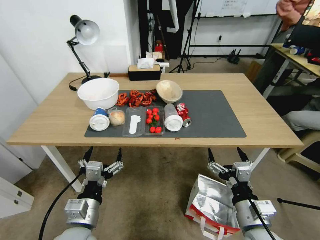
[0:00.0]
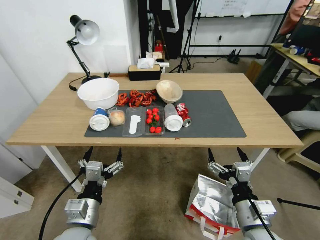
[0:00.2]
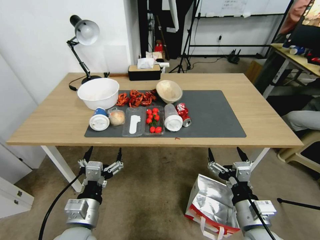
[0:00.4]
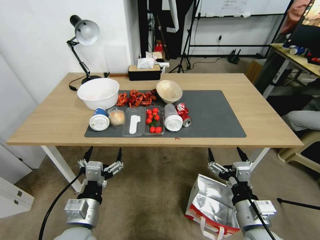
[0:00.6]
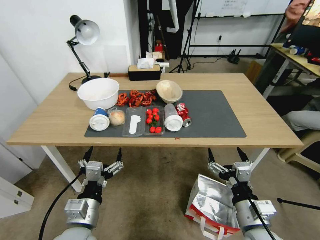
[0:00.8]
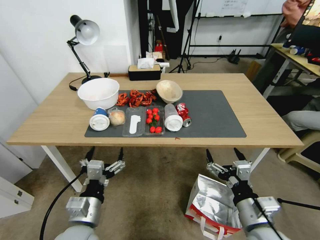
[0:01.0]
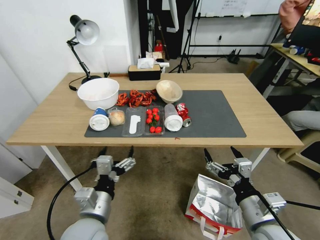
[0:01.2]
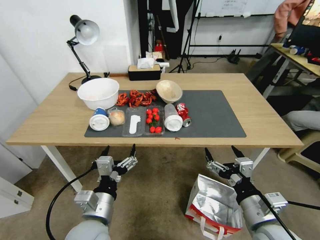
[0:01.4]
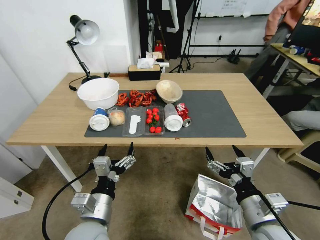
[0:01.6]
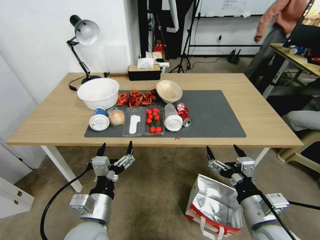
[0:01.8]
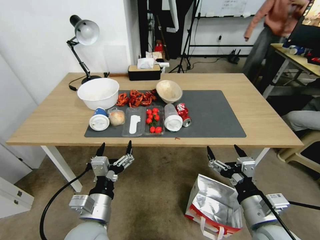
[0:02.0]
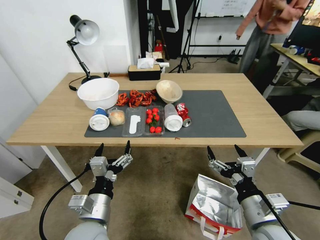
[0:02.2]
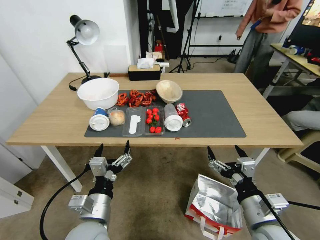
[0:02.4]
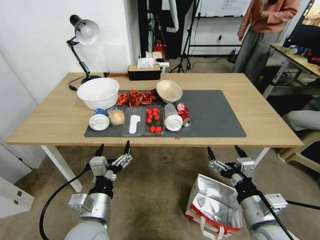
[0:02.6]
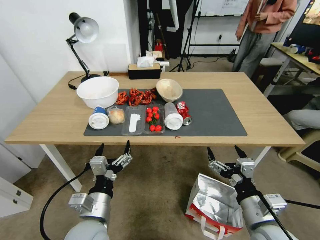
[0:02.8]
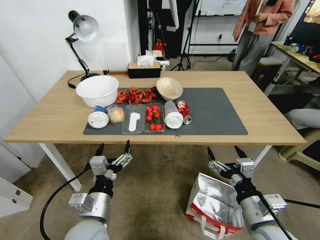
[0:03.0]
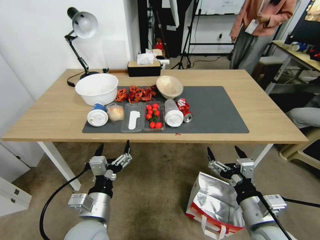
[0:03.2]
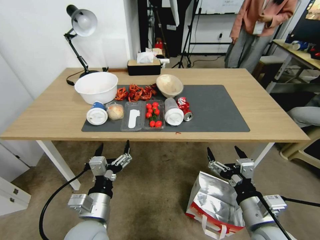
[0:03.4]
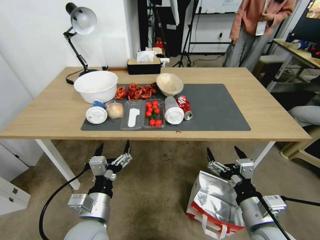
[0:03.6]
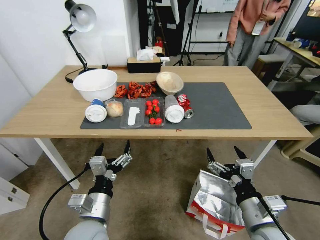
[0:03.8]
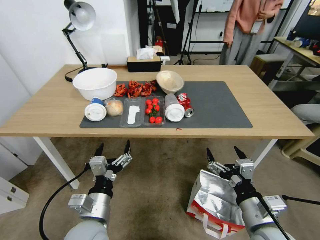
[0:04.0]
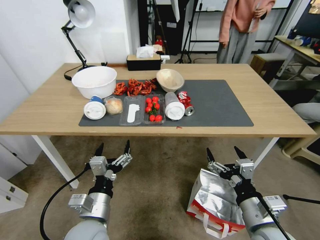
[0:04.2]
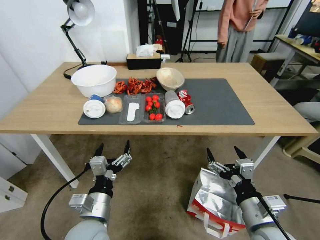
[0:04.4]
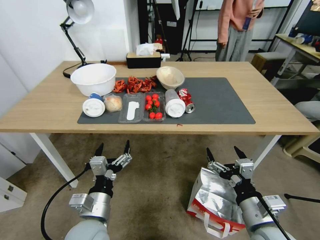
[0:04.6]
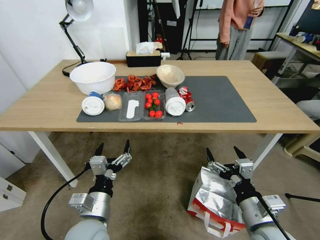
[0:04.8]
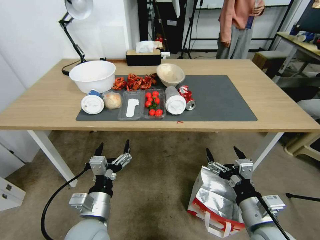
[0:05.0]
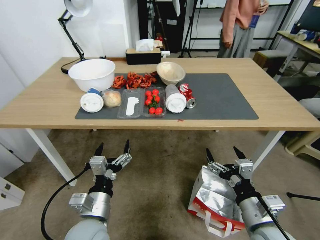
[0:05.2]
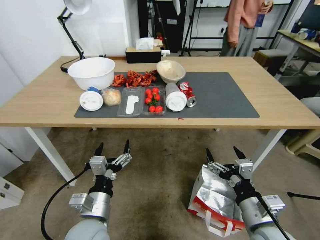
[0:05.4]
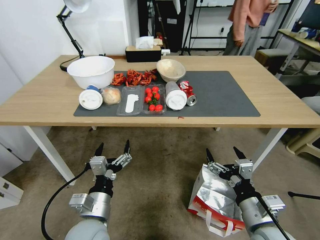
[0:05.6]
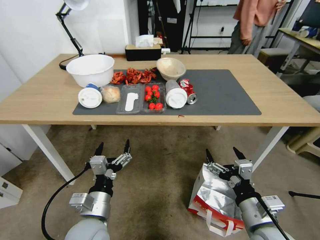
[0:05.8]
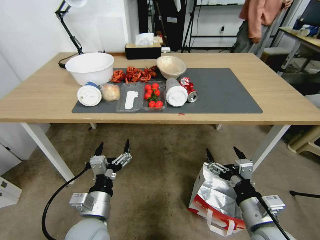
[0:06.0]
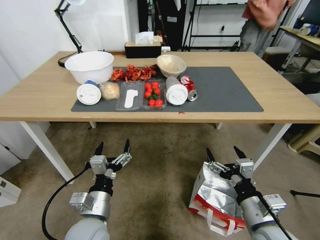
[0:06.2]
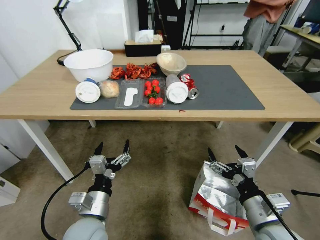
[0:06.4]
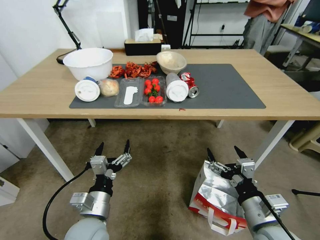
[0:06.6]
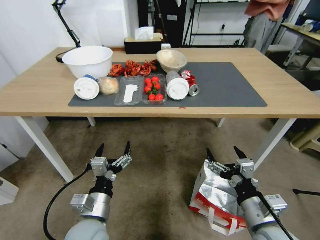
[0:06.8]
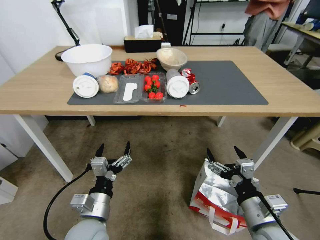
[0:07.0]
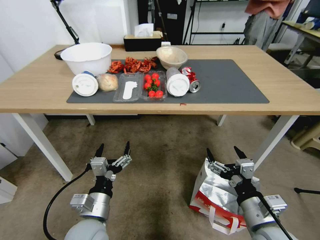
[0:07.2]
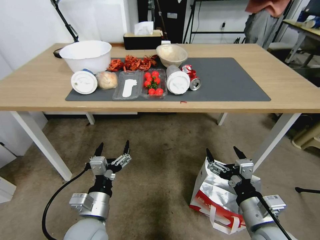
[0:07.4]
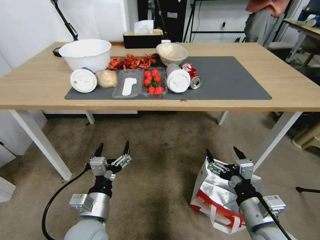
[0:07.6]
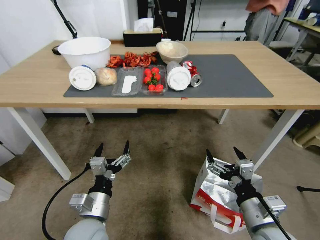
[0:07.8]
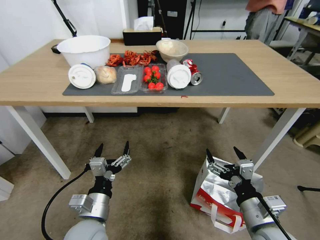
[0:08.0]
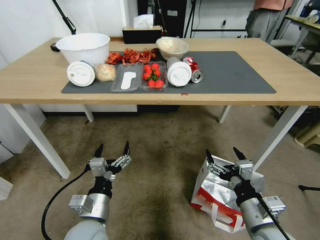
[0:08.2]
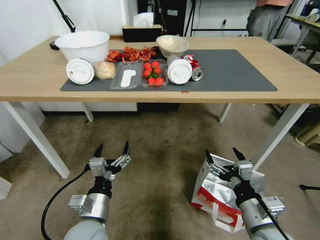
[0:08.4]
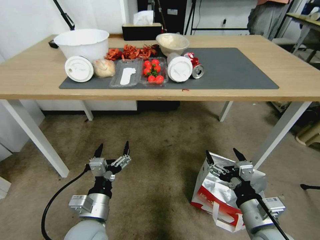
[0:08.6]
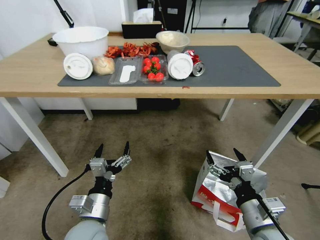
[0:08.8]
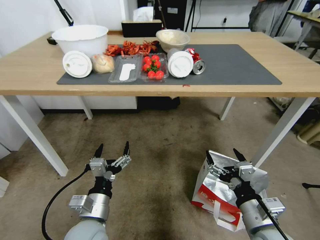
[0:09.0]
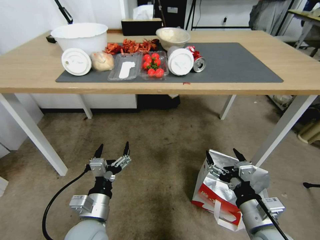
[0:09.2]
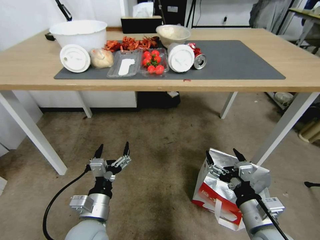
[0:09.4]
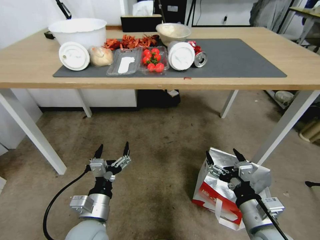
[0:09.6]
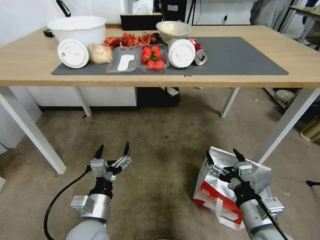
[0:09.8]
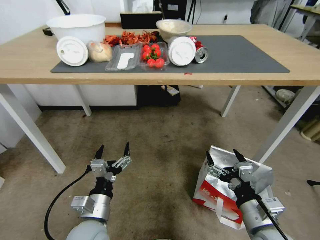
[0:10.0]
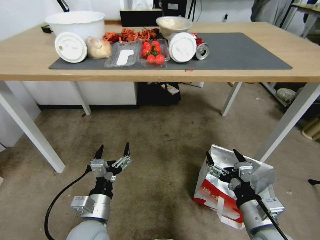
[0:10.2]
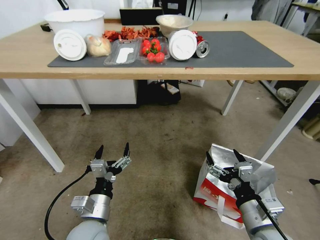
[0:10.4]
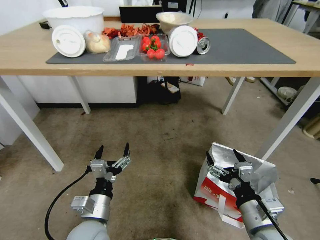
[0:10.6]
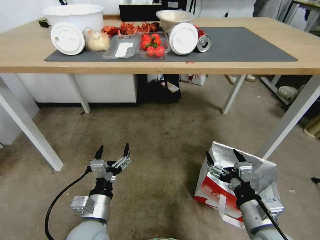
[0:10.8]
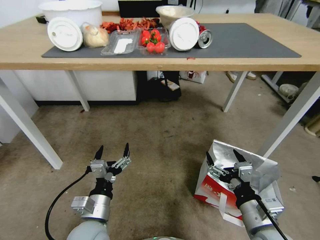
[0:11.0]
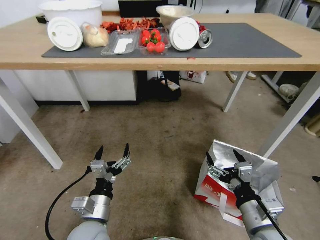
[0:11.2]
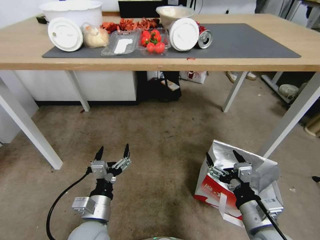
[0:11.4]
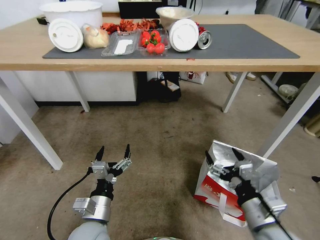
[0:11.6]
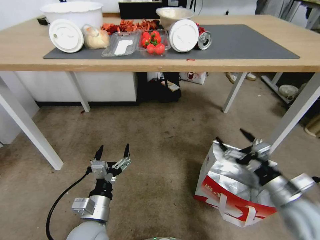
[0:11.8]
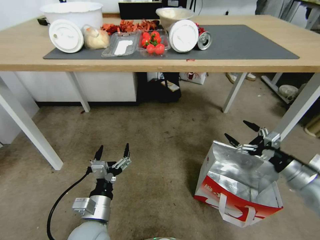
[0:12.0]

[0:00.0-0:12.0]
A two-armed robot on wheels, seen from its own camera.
Task of the whole recording: Pick up the food delivery bag from the floor and place it on the table.
0:10.4 to 0:12.0: The right gripper moves to the right and forward, some 25 cm.

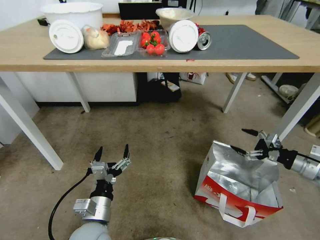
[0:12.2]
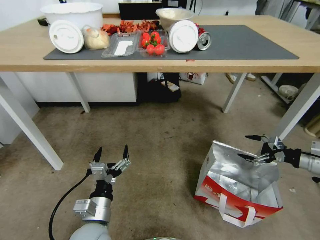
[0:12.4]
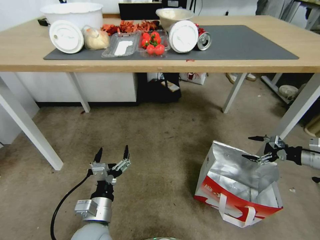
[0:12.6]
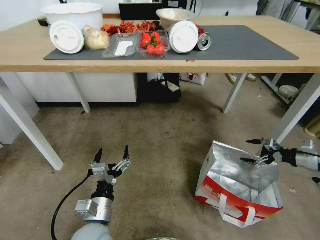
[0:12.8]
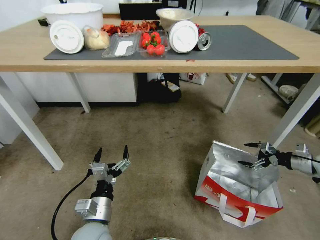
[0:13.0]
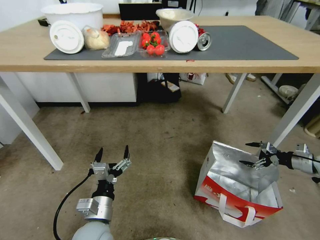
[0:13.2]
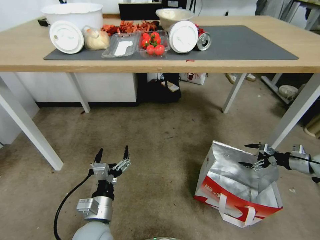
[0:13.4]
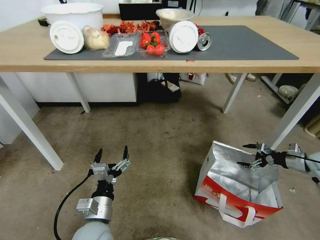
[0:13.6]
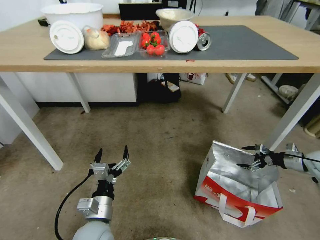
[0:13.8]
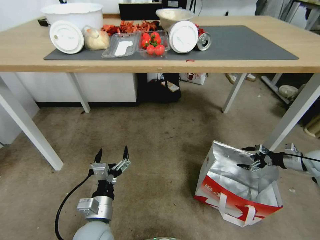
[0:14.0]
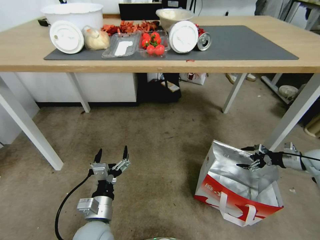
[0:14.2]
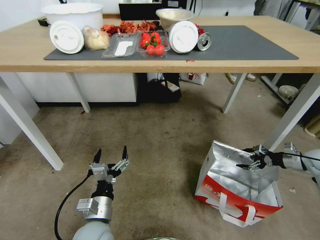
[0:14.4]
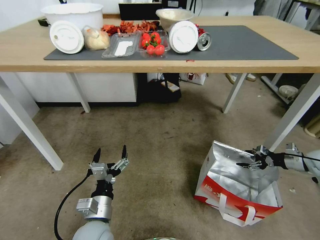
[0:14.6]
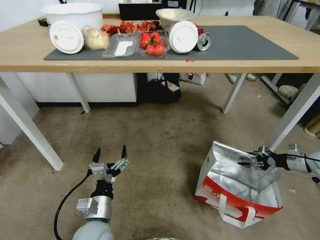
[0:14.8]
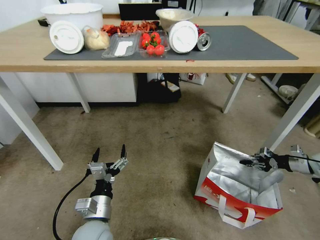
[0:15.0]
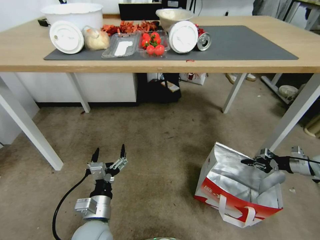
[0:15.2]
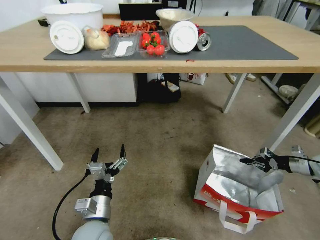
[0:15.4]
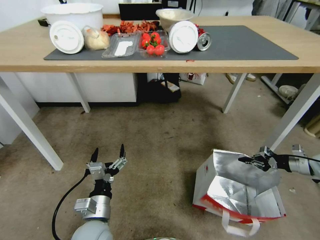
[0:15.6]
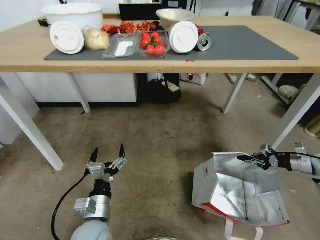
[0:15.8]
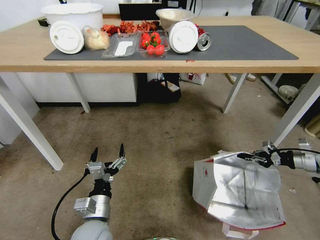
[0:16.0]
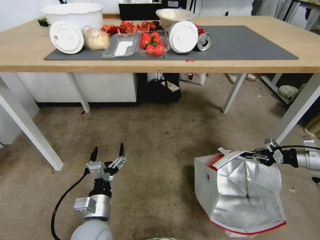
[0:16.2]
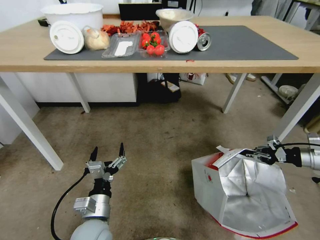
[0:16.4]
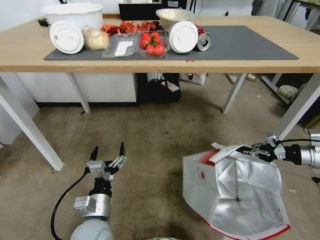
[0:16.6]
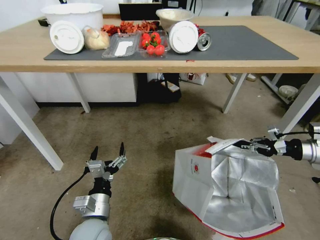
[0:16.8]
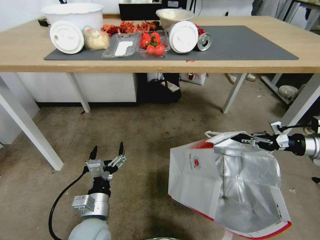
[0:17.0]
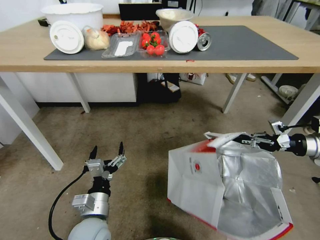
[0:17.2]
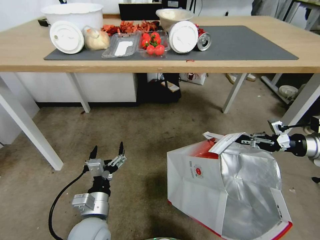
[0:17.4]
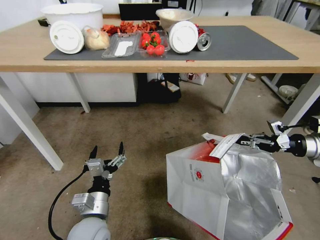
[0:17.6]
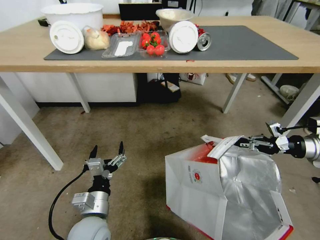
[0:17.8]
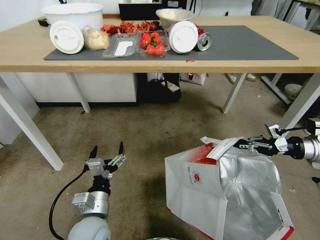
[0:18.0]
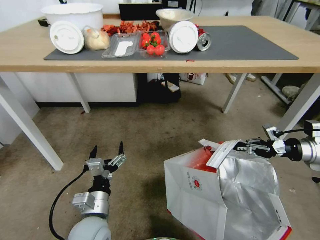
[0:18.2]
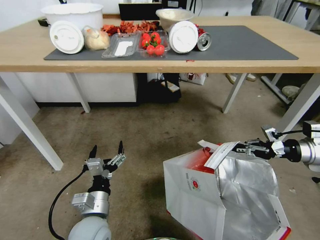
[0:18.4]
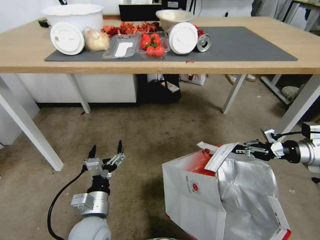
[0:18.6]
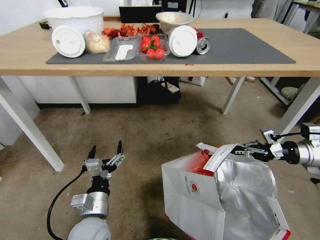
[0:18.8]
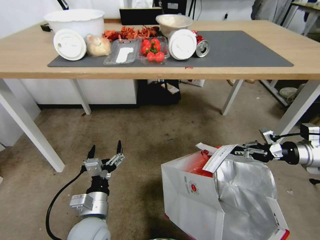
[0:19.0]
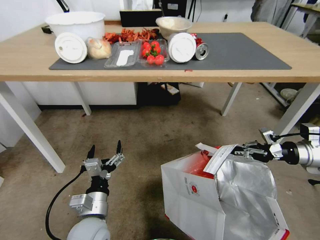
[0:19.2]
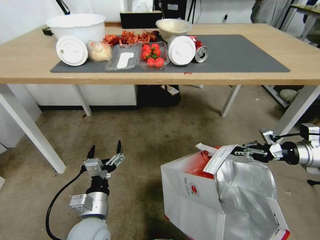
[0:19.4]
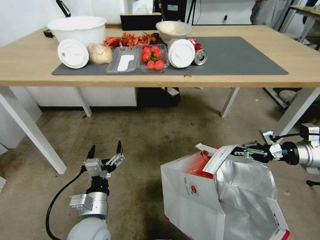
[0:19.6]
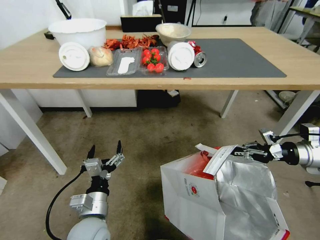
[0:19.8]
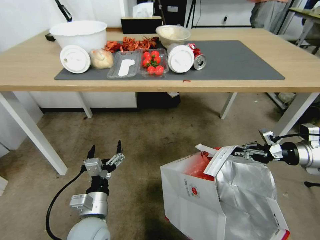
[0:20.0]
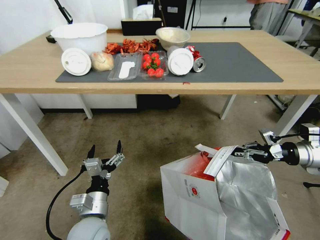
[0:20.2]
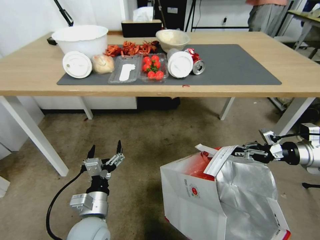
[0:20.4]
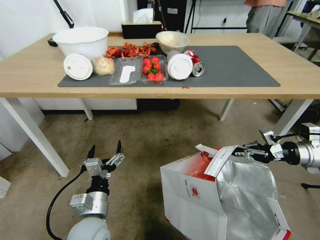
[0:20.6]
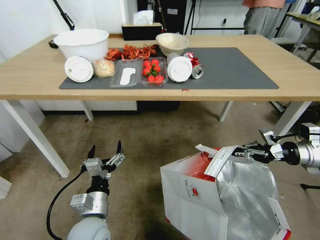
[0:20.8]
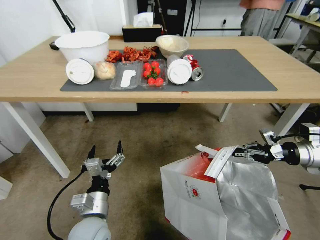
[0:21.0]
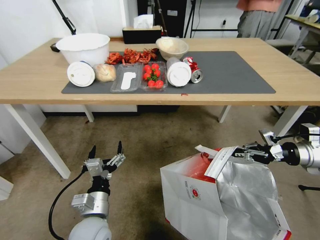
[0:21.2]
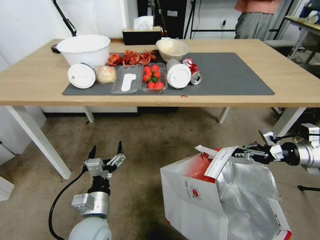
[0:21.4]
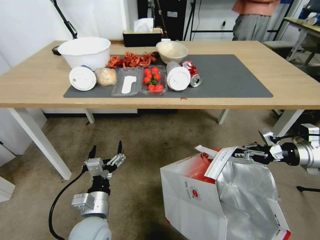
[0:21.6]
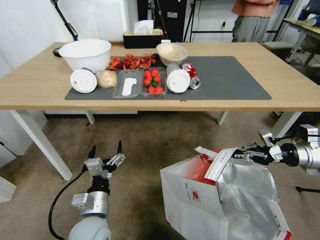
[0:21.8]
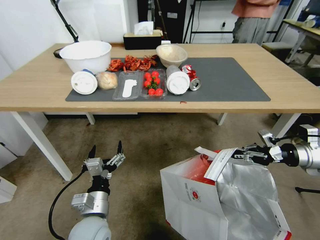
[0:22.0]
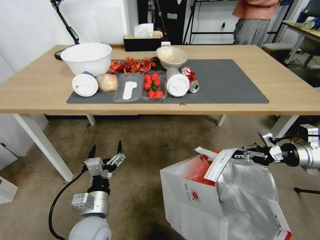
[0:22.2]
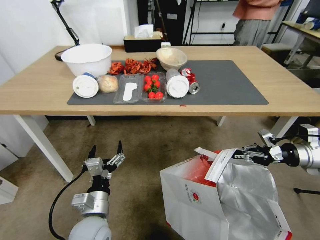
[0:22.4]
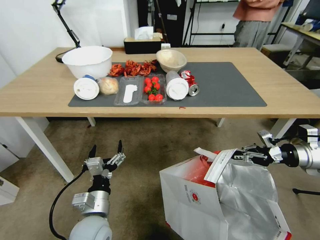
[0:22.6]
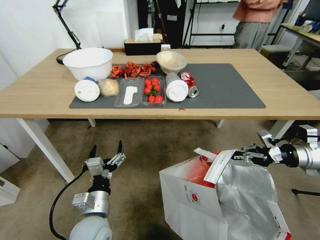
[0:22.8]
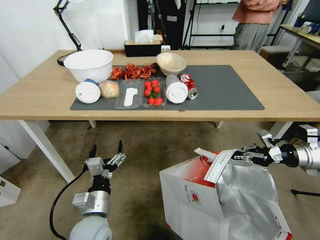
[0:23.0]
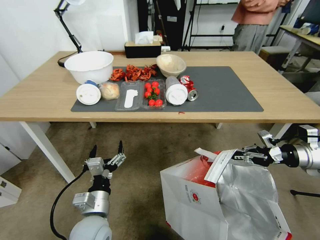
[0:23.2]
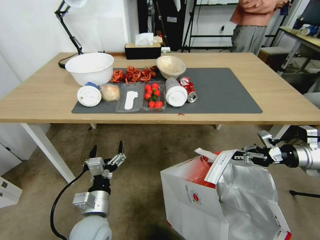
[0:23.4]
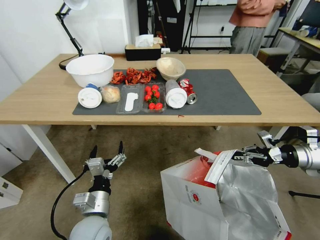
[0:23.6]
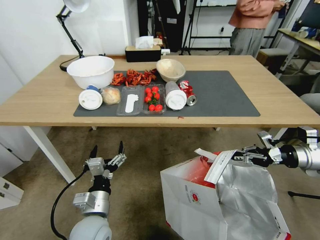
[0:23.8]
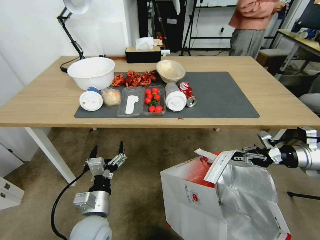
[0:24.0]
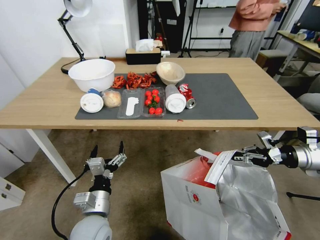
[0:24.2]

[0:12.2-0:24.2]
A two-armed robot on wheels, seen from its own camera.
Task of the whole recording: Pick up the food delivery bag from the floor and place it on the table.
0:12.2 to 0:13.8: The right gripper is displaced forward, to the right and downward by approximately 15 cm.
0:13.8 to 0:15.2: The right gripper closes its fingers.
0:15.2 to 0:16.6: The right gripper goes some 10 cm upward and to the left.
0:16.6 to 0:18.2: The right gripper changes place by approximately 5 cm.
